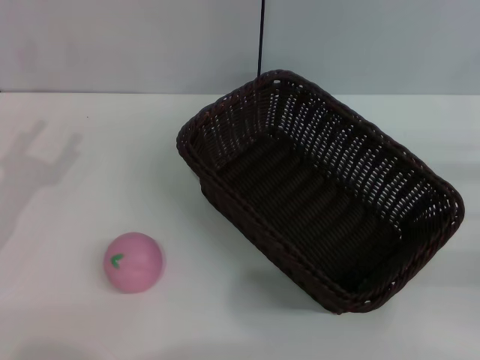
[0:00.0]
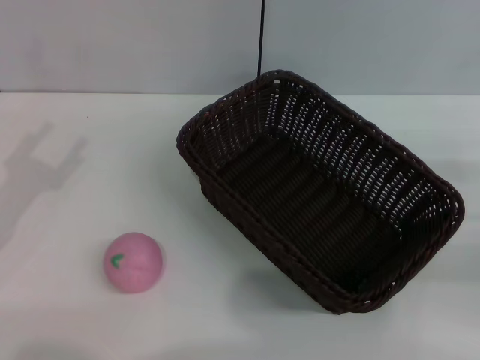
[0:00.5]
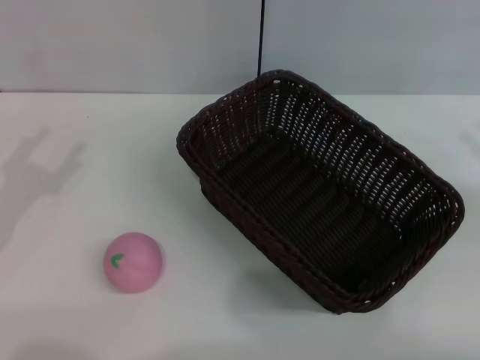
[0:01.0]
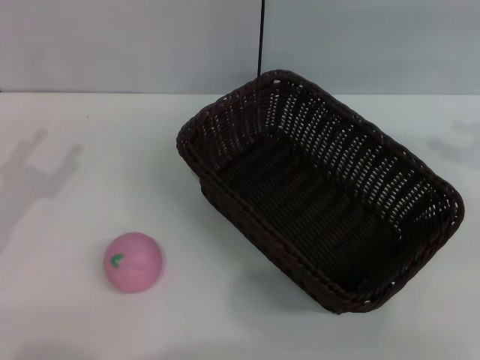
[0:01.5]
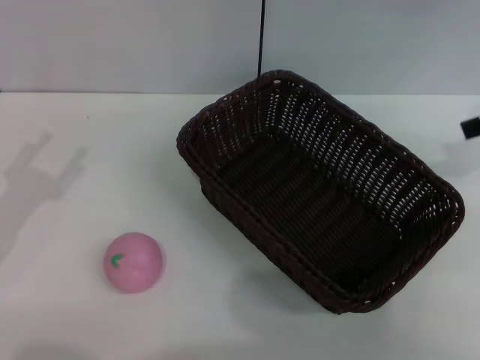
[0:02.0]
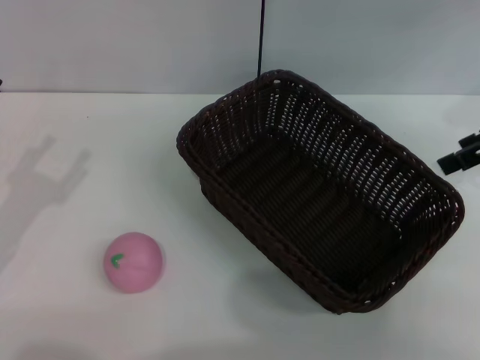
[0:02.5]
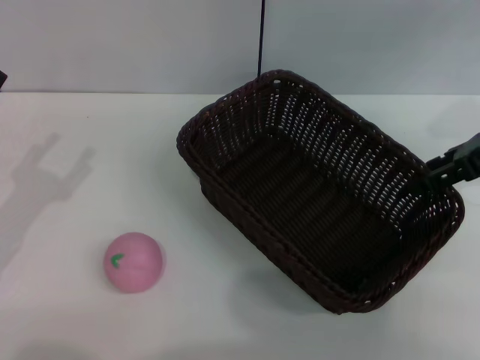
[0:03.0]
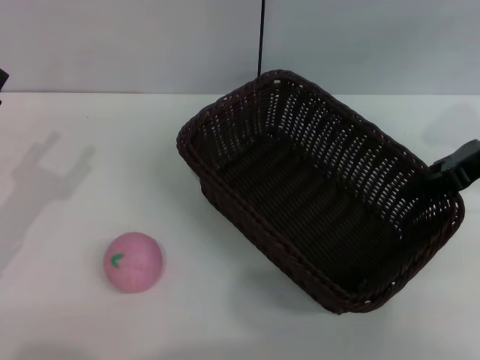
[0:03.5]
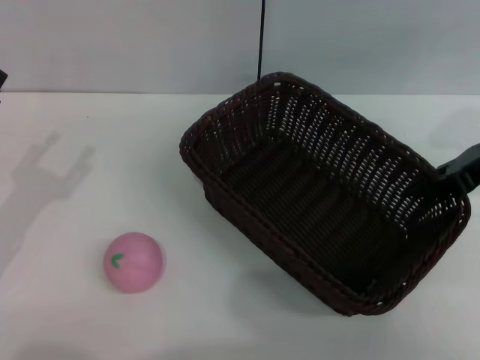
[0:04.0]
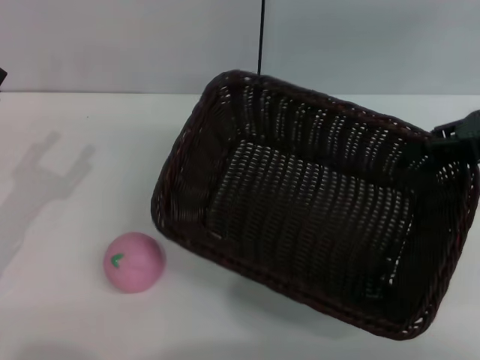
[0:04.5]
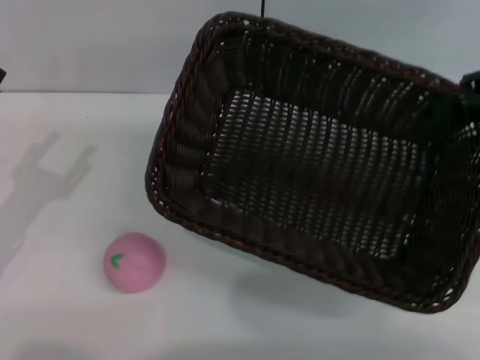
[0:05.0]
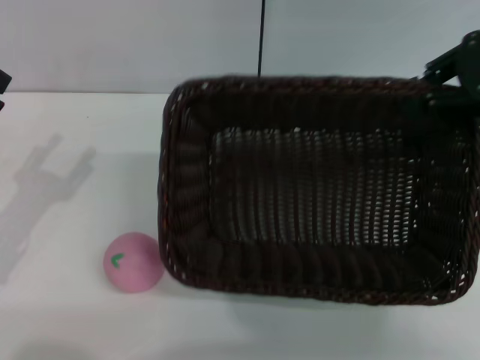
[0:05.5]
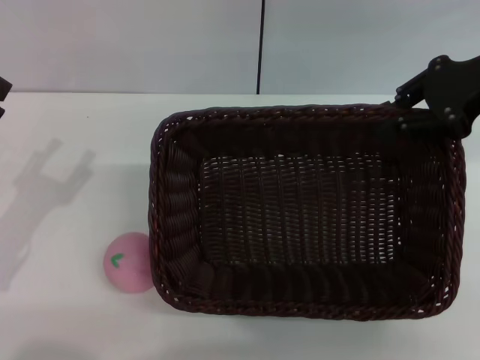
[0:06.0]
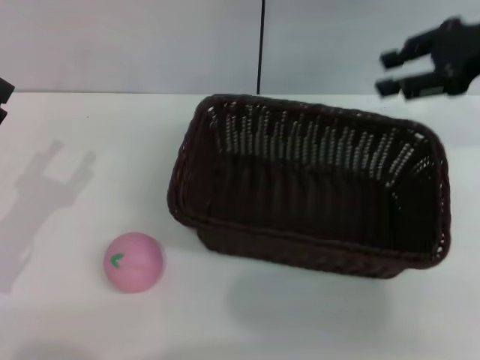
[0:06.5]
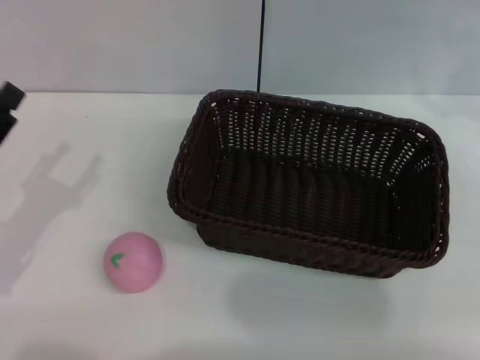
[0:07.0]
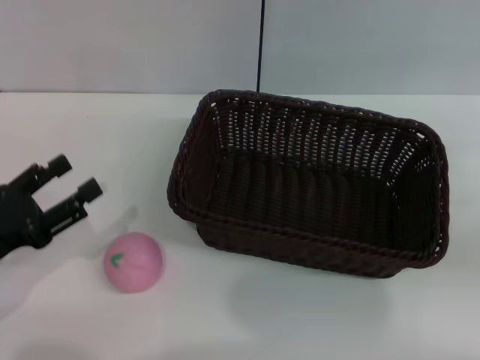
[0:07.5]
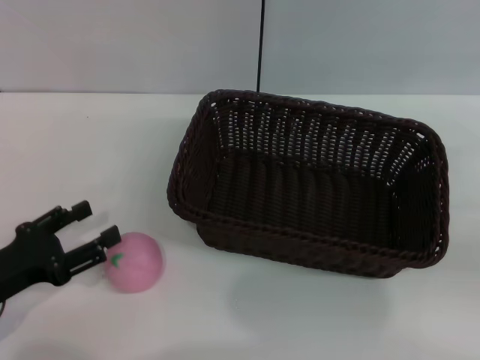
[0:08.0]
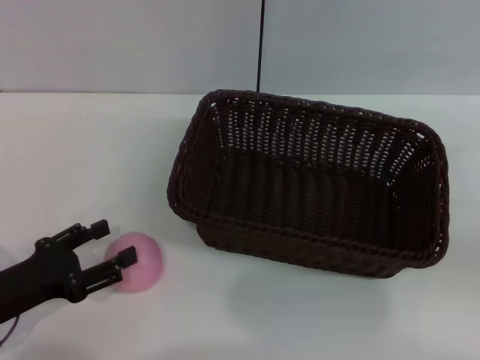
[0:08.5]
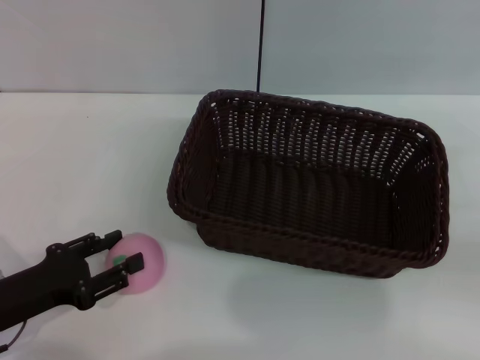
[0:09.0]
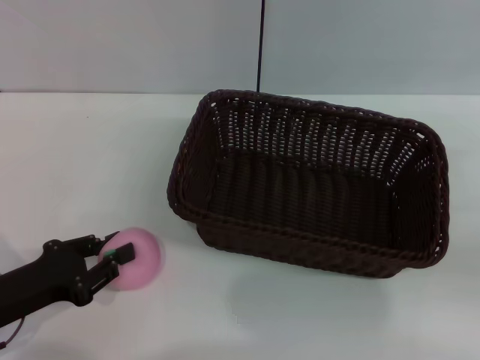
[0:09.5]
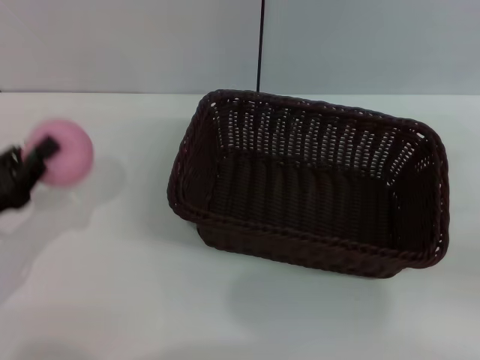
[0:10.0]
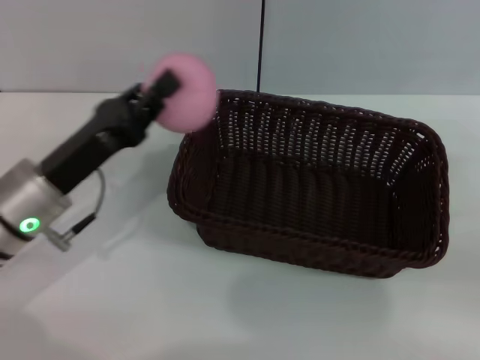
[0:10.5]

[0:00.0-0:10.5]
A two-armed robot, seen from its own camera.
Step, 0:00.0 to 0:05.0: Pick up the dark basket with the right gripper.
Step, 0:05.5 to 0:06.5: Place the dark basket in the center of view with the right gripper.
Step, 0:07.0 to 0:10.0: Pick up the peach with the left gripper.
0:00.0 to 0:02.0: The right gripper heads upward and forward, covering about 20 cm.
0:02.0 to 0:04.0: The right gripper goes about 10 cm downward, and closes.
0:04.0 to 0:06.5: The right gripper heads upward, covering some 10 cm, and opens up.
0:06.5 to 0:08.5: The right gripper goes some 20 cm backward, downward and to the right.
0:08.5 to 0:10.5: The left gripper is displaced forward and to the right by some 10 cm, and closes up.

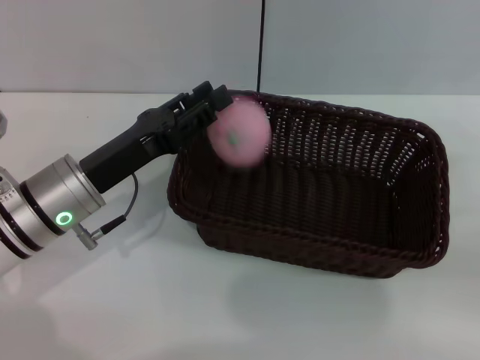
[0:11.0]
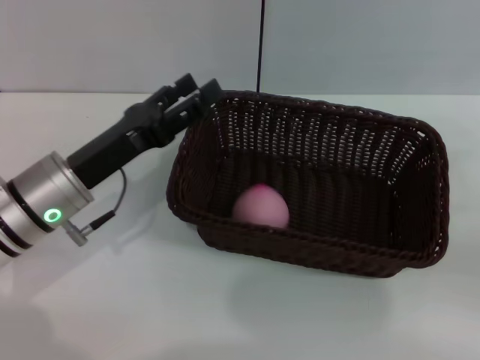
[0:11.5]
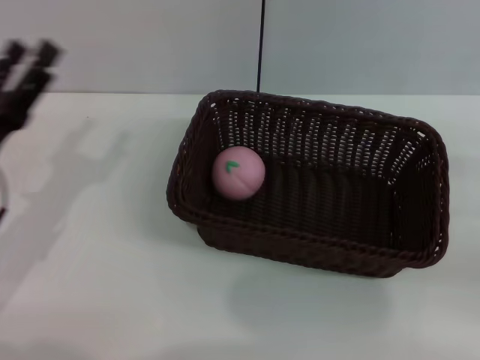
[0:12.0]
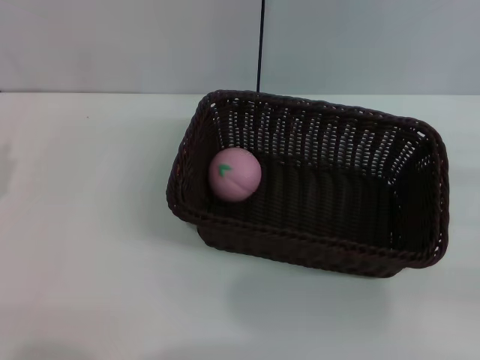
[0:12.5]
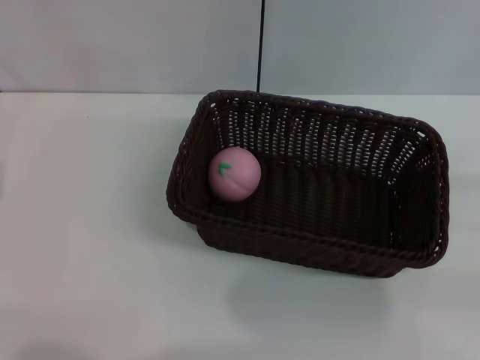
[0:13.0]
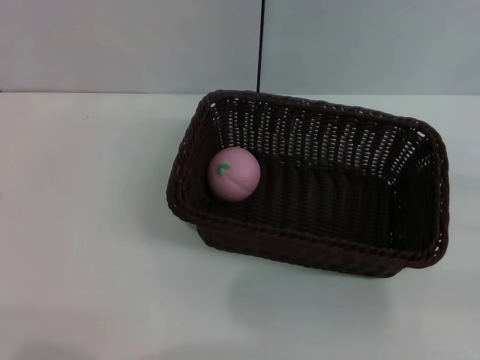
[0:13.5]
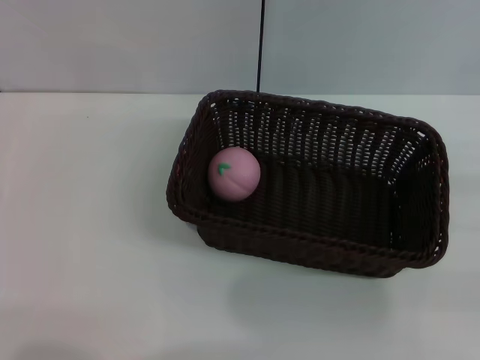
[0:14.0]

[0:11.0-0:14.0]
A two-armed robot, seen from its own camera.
0:11.0 to 0:12.5: The left gripper shifts about 15 cm to the left and backward, and opens.

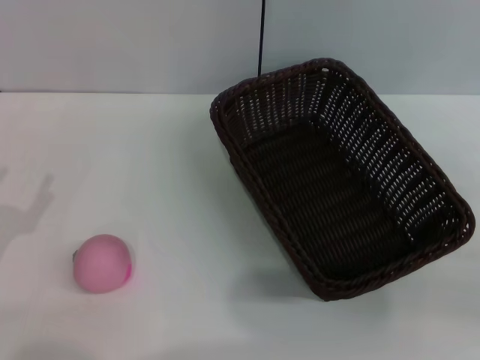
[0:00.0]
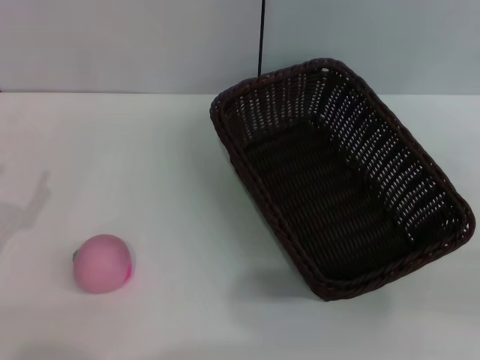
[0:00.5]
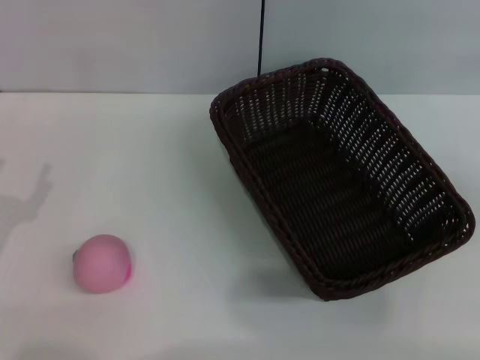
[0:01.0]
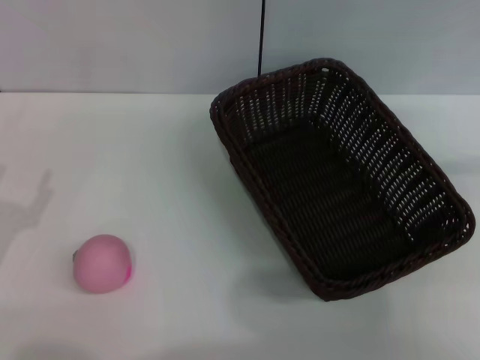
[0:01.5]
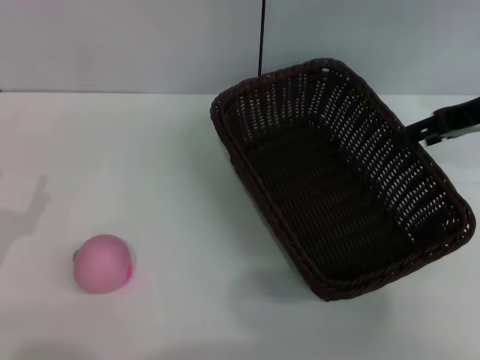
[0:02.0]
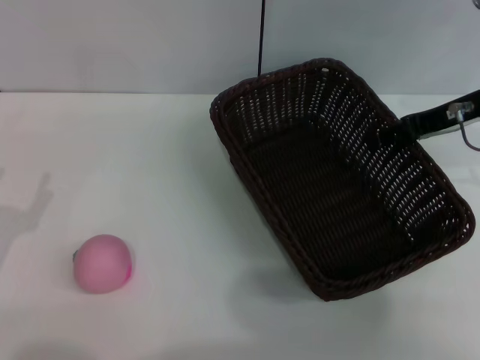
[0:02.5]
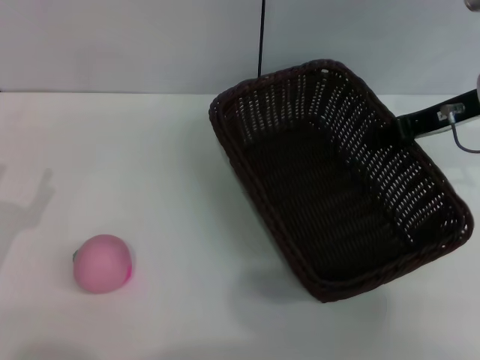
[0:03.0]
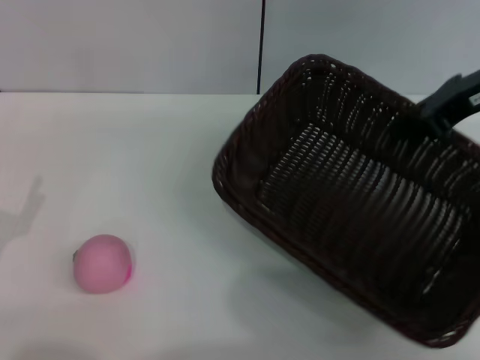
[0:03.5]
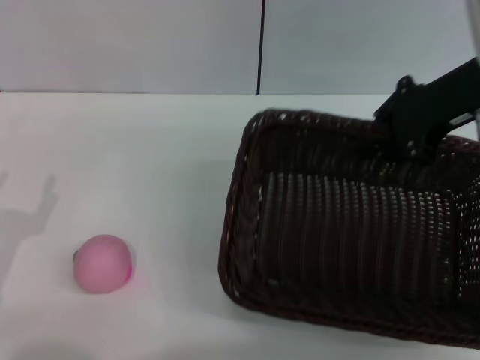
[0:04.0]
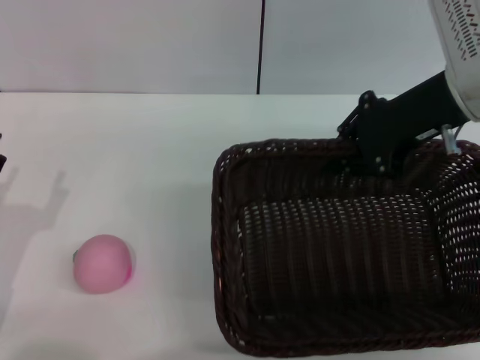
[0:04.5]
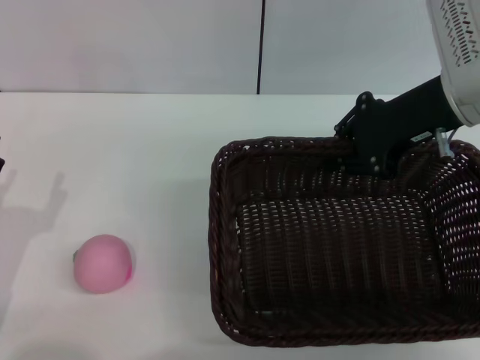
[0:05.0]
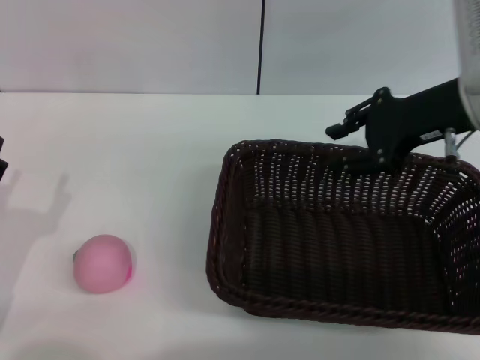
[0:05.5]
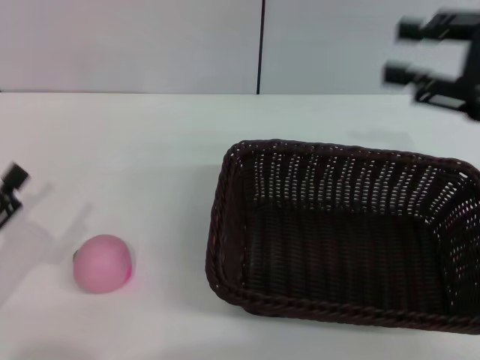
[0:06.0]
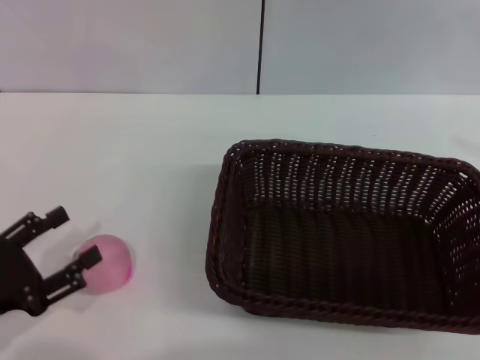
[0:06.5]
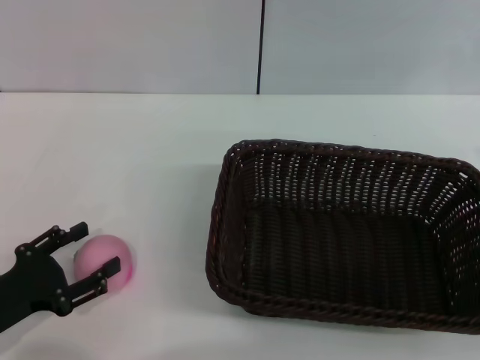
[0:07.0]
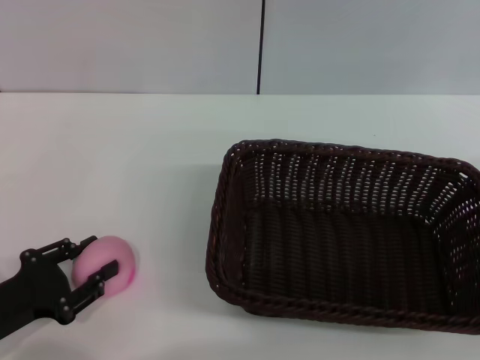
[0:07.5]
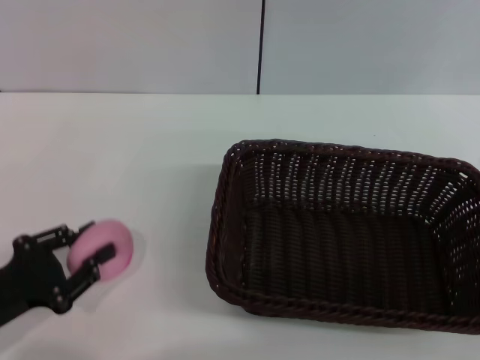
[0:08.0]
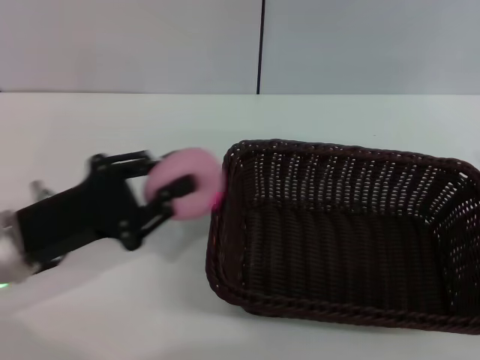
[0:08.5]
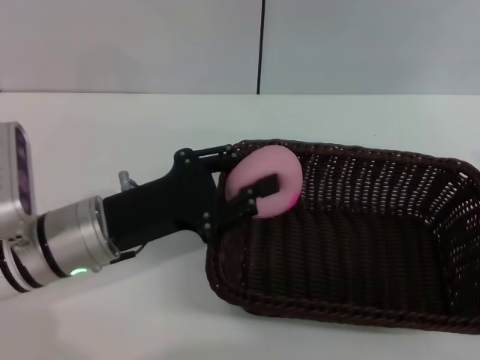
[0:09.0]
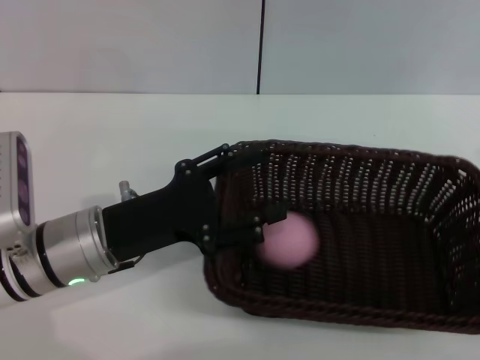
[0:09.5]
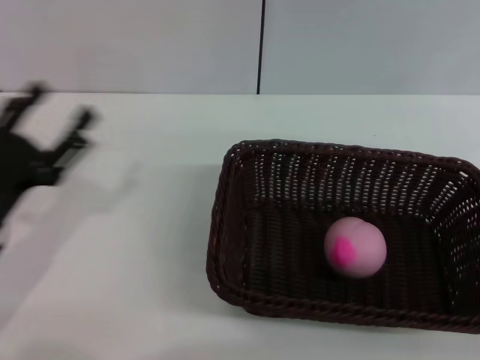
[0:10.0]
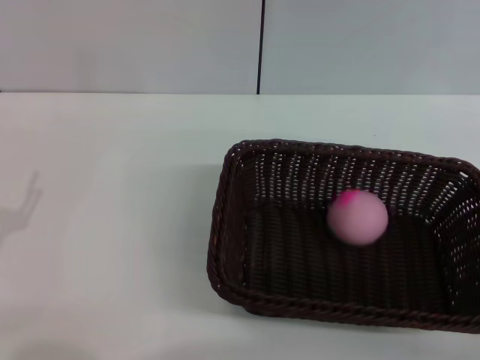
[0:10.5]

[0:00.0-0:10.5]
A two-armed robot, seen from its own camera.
Step, 0:03.5 to 0:05.5: Place the dark basket in the center of view with the right gripper.
Step, 0:06.0 to 0:08.0: Pick up the peach with the left gripper.
Step, 0:08.5 to 0:09.5: Place the peach into the basket with the left gripper.
0:00.0 to 0:02.0: The right gripper goes some 25 cm forward, to the left and upward.
0:02.0 to 0:04.0: The right gripper heads to the left, covering roughly 5 cm, and closes.
0:04.0 to 0:06.5: The right gripper is displaced backward and to the right by some 20 cm, and opens its fingers.
0:06.5 to 0:08.5: The right gripper goes approximately 5 cm downward. The left gripper heads forward and to the right, covering approximately 10 cm, and closes its fingers.
0:08.5 to 0:10.5: The right gripper moves approximately 5 cm. Meanwhile the left gripper heads to the left and backward, covering about 10 cm, and opens up.
